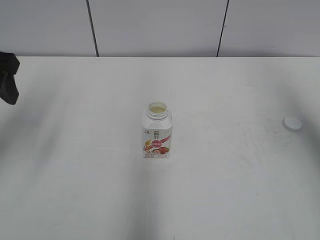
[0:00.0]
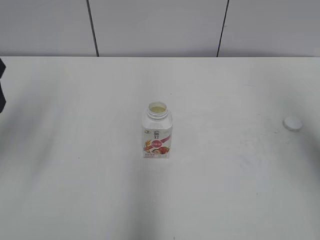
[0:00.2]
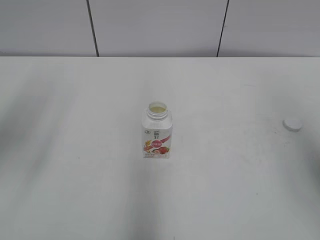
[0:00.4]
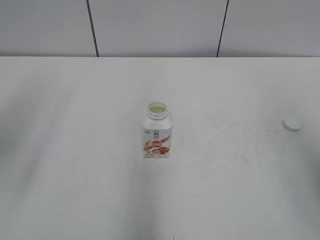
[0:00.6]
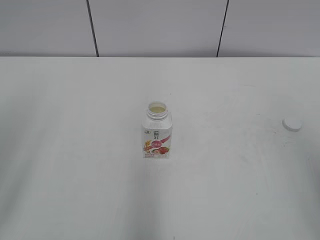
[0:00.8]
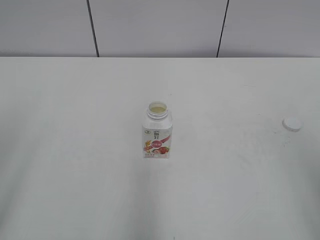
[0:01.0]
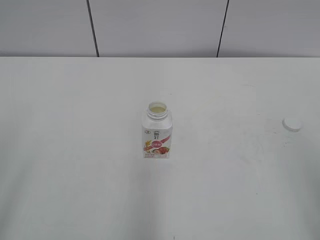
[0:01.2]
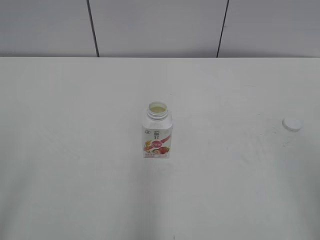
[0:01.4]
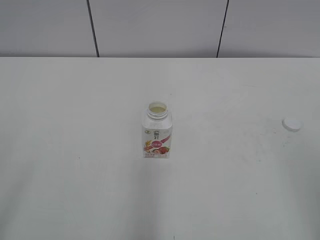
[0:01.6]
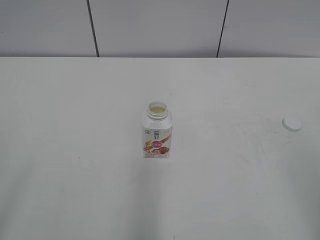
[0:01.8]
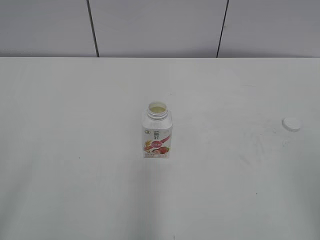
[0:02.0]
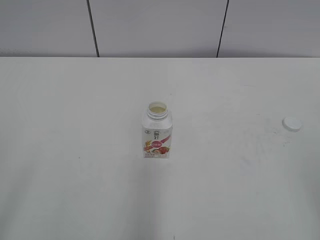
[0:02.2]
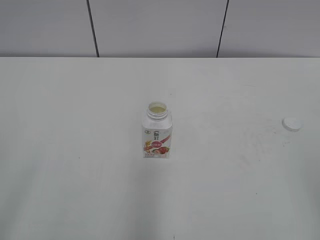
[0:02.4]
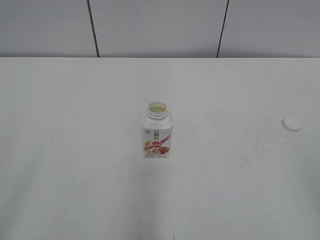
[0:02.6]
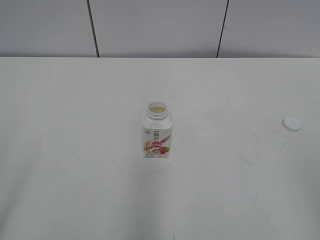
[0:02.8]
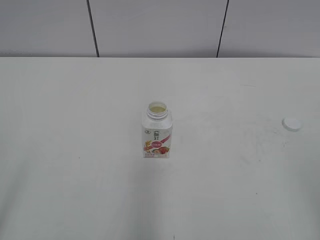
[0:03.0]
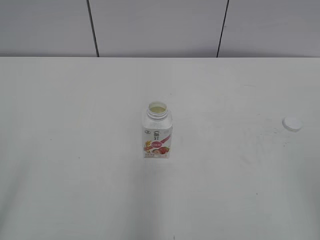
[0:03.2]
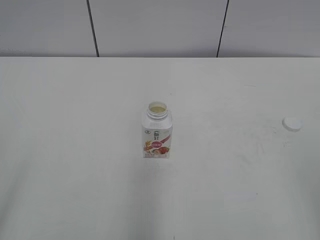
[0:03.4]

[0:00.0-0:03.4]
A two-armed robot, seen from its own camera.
0:00.0 to 0:01.6: The grippers both shift backward by approximately 25 cm.
